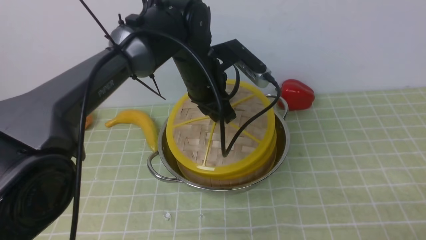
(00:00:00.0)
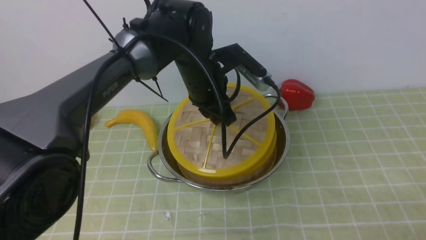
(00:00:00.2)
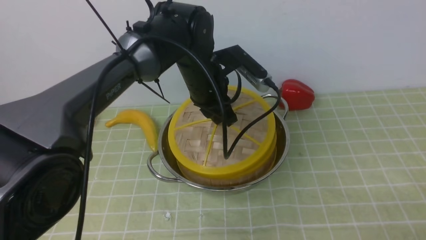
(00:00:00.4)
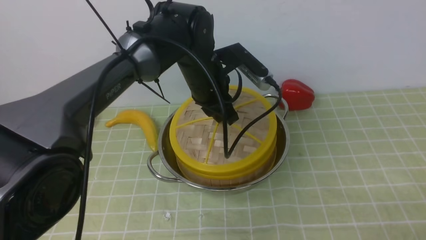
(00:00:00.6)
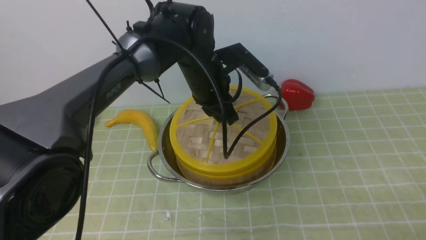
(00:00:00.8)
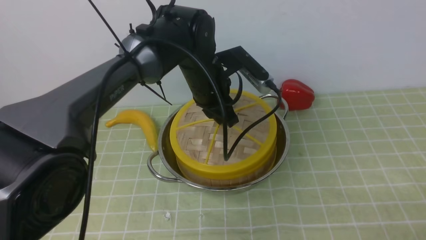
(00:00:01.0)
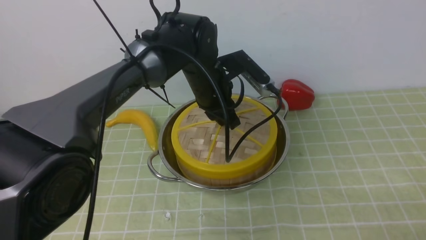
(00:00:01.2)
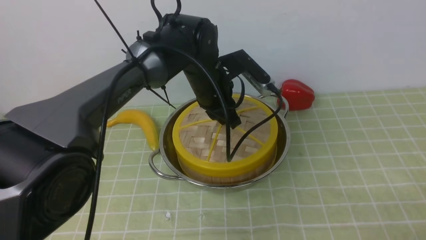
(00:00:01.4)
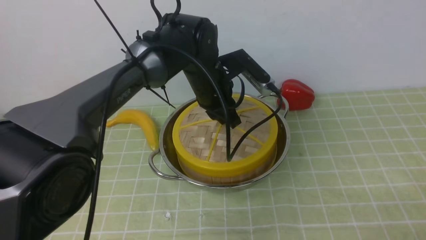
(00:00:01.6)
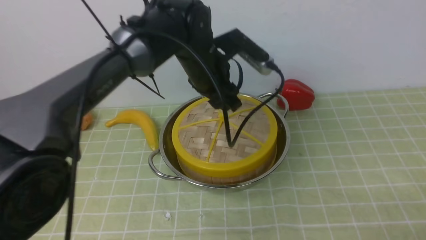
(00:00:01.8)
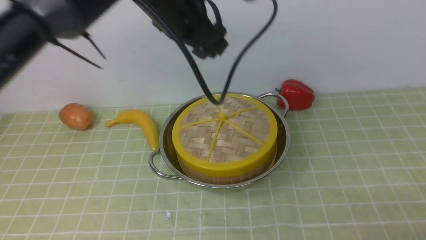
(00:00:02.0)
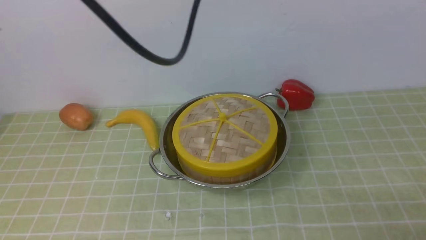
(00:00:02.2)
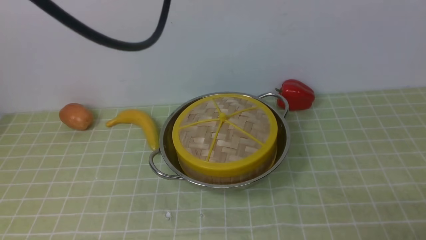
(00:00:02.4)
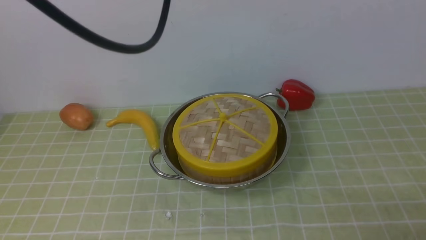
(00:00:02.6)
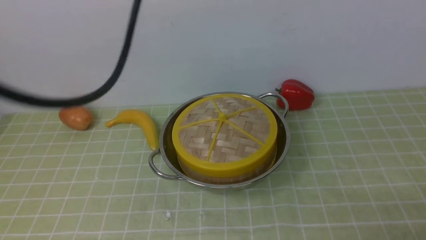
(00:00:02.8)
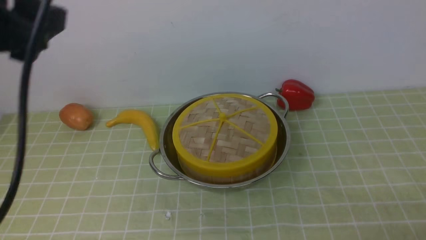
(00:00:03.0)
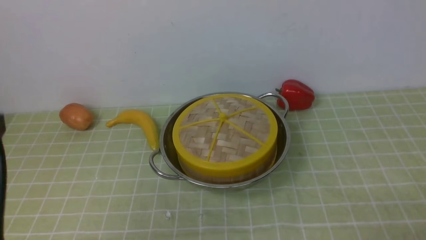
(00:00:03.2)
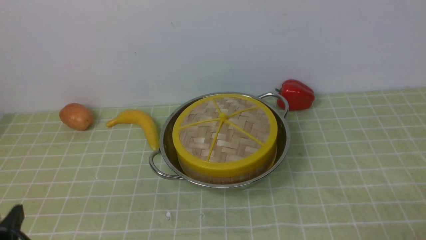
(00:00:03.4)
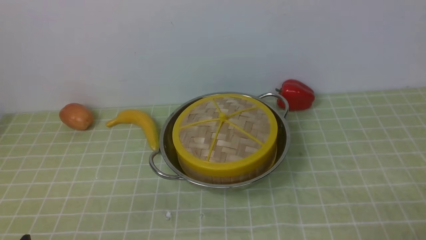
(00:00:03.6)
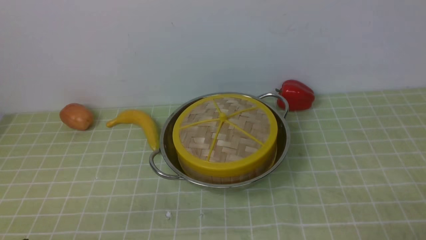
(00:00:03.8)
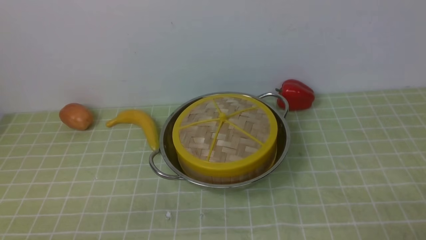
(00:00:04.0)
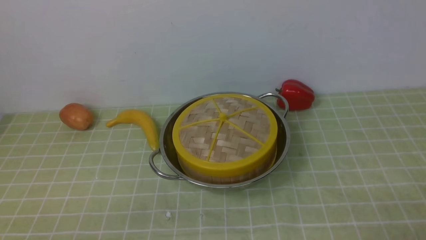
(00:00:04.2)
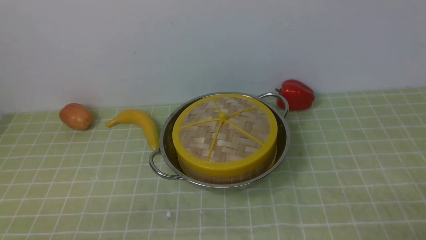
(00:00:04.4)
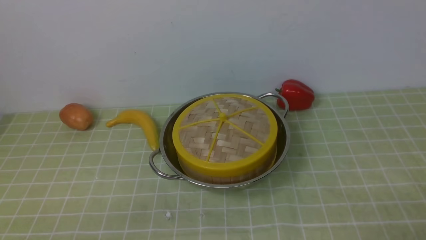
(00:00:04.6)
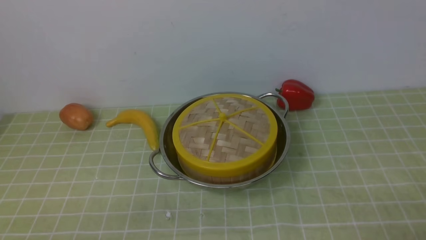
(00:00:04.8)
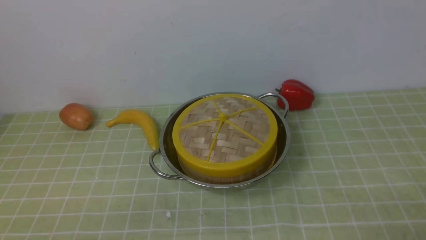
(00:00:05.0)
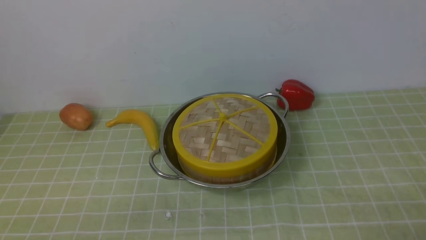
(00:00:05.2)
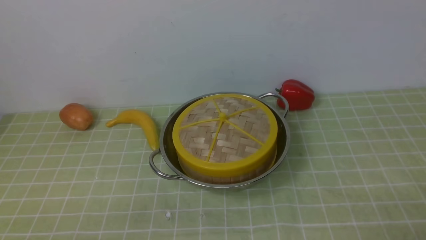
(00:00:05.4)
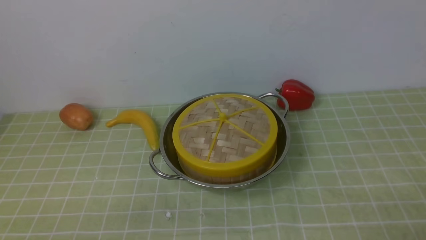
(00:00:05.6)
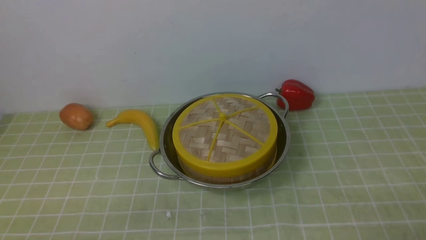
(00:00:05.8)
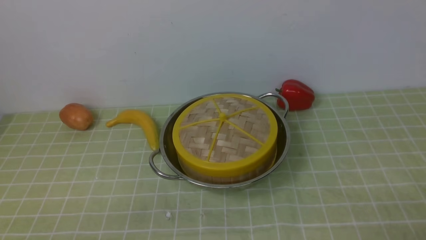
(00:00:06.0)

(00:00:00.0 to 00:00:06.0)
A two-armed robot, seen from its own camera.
Task of the whole recording: place the steamer in the pot on the green tablecloth, and put the lid on the steamer.
Step, 00:00:00.0 - 00:00:02.2: use the left arm to place the steamer lid on the steamer.
00:00:00.0 - 00:00:01.6: The grippers stay close to where they were, moving slightly.
00:00:01.6 - 00:00:03.0: The left gripper moves backward, to the left and upward, roughly 35 cm, and opens its fingers.
00:00:03.0 - 00:00:04.4: The left gripper heads downward and backward, covering roughly 30 cm.
00:00:04.4 - 00:00:06.0: Neither gripper changes place.
